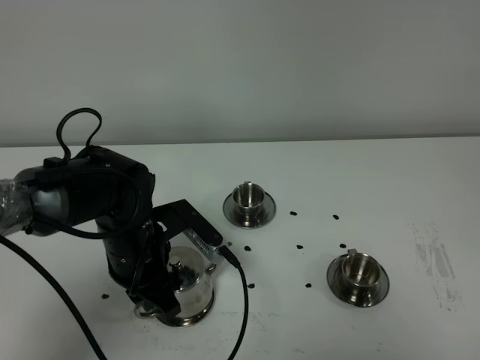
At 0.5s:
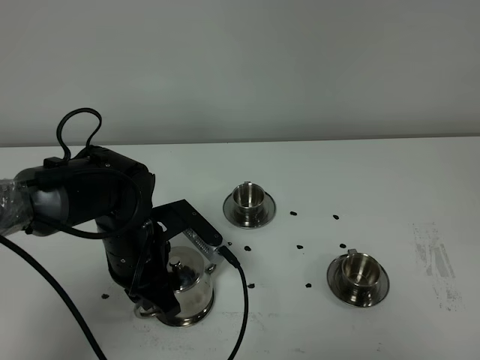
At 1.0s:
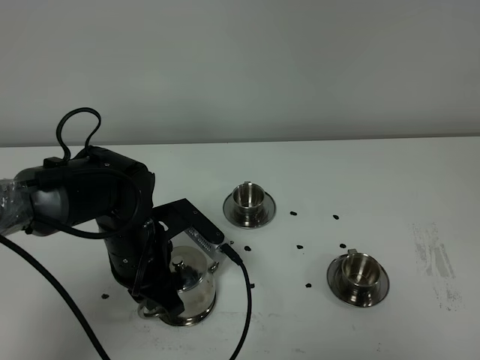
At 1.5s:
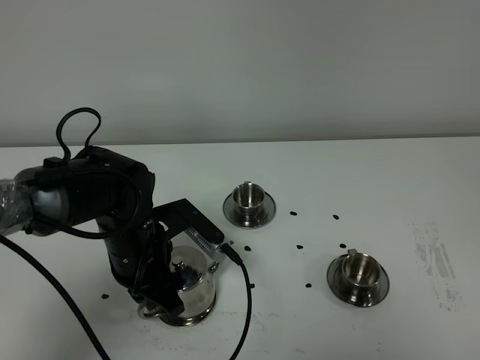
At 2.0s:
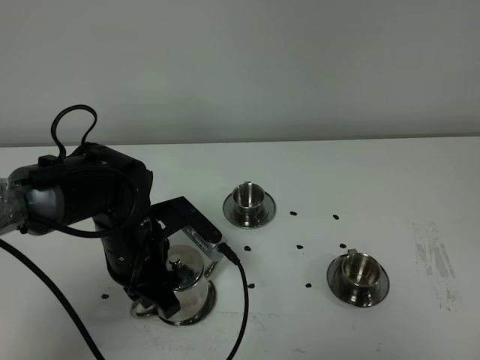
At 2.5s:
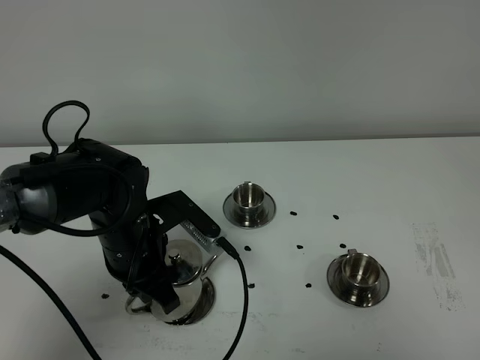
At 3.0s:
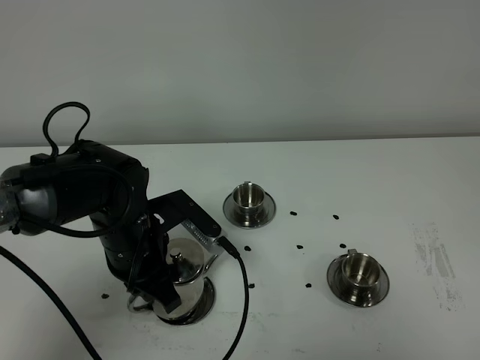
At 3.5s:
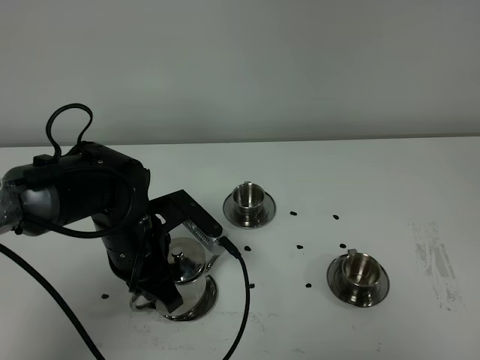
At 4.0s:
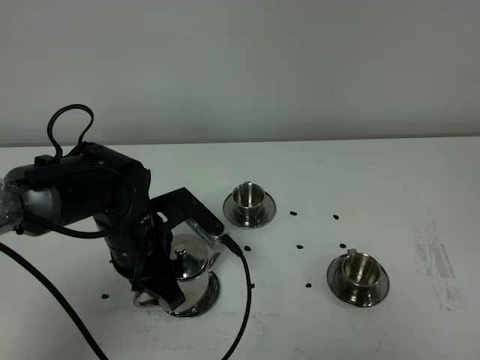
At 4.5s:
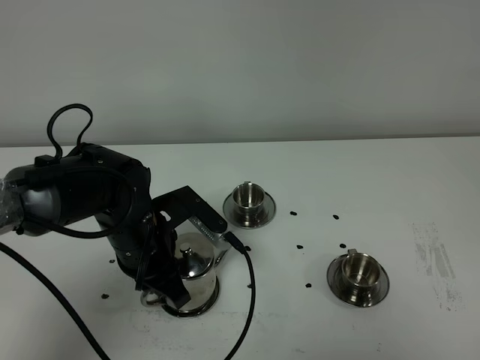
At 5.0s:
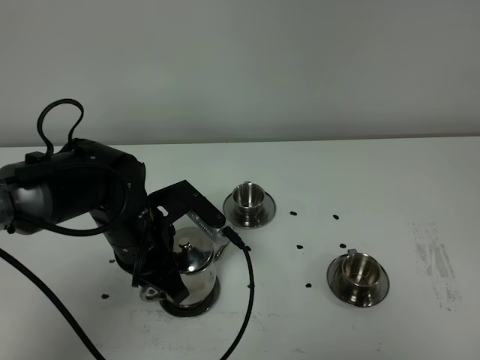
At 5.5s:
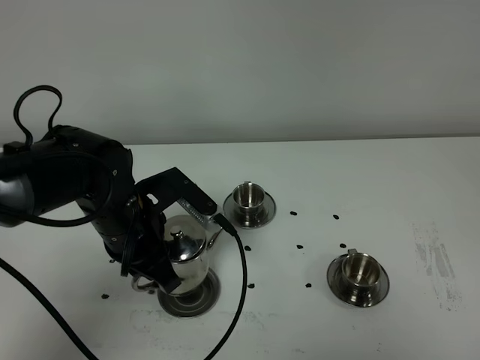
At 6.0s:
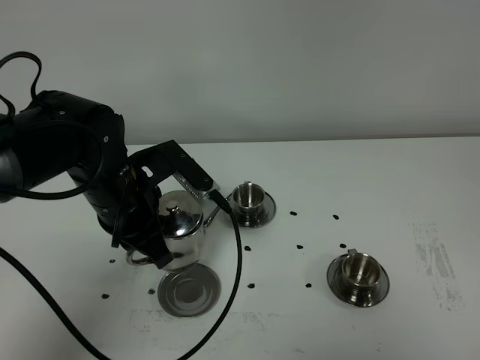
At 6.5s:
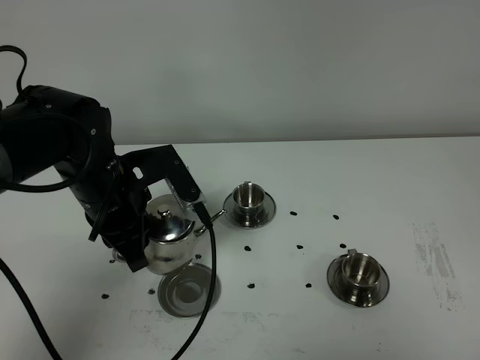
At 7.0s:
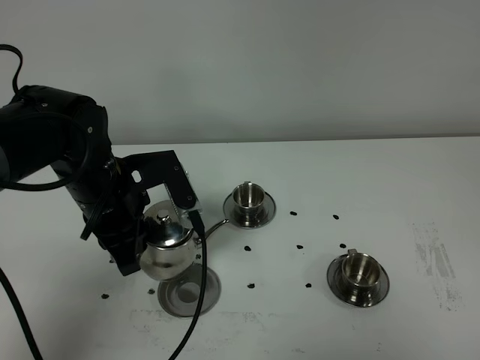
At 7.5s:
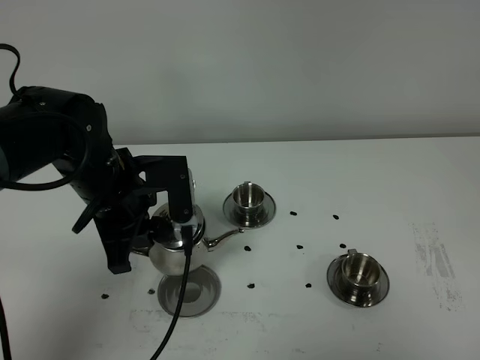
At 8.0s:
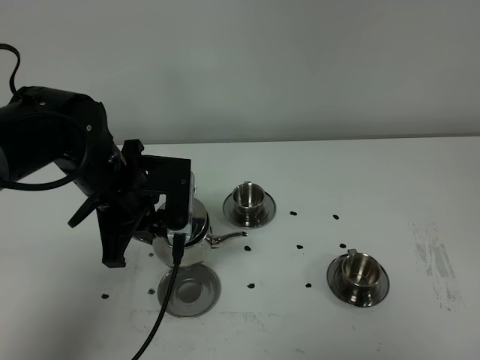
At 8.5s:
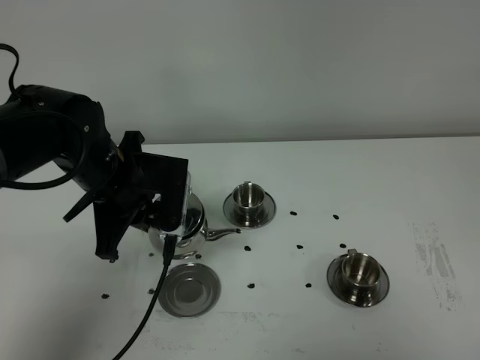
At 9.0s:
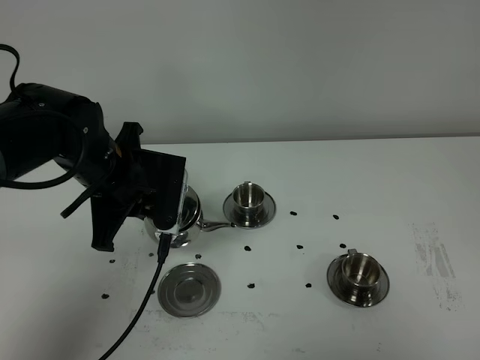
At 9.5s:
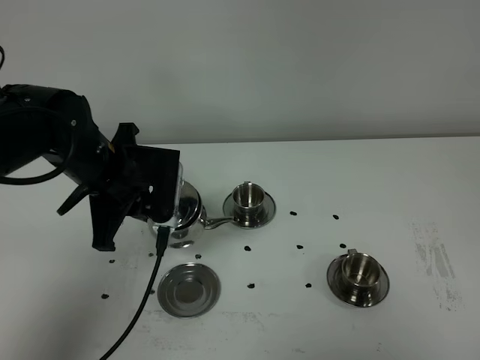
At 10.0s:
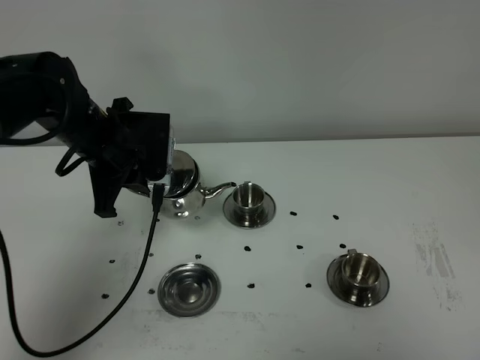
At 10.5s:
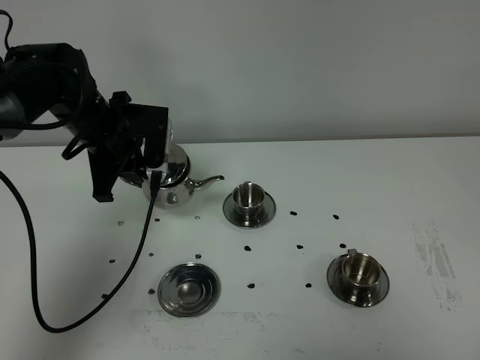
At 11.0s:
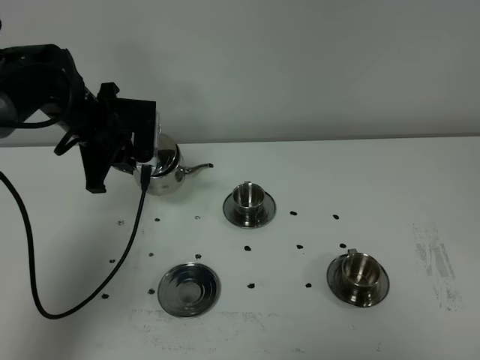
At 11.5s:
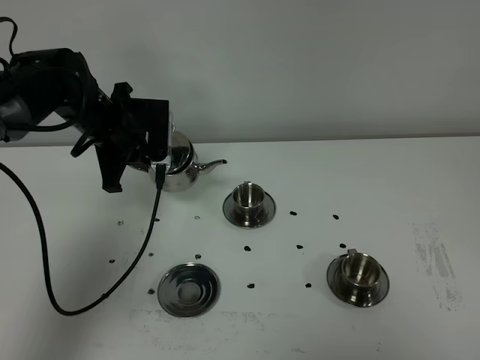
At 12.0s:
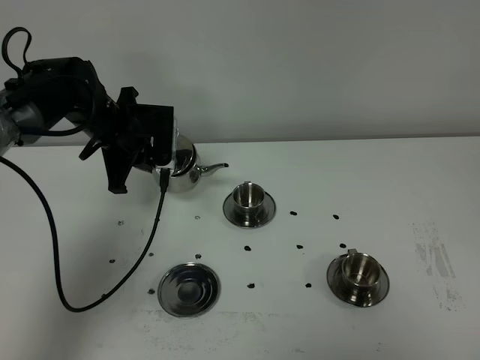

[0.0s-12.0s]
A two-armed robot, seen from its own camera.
Task of the whole recording: grasp the stainless steel teapot and pour the tea into the two stainless steel teacups one by one, put the stainless steel teapot back in its original place.
Step, 0.0s to 5.5s: Pick up the teapot with the left gripper.
0.0s to 2.0s: Neither gripper changes place.
2.0s to 4.0s: Both grippers stay put.
4.0s to 6.0s: The left gripper is displaced upward by approximately 5 cm.
8.0s to 10.0s: The left gripper travels forward by about 5 cm.
10.0s to 12.0s: The left gripper is displaced forward by roughly 5 cm.

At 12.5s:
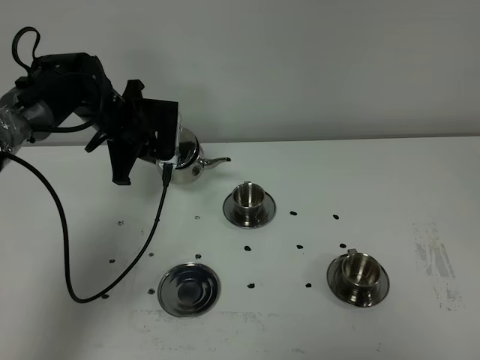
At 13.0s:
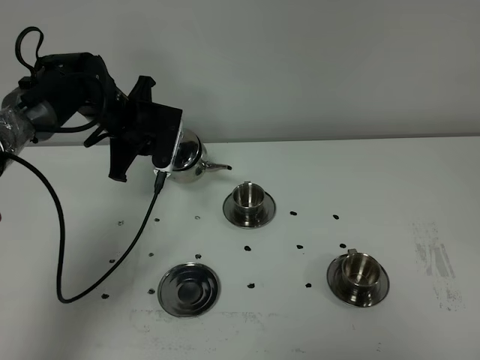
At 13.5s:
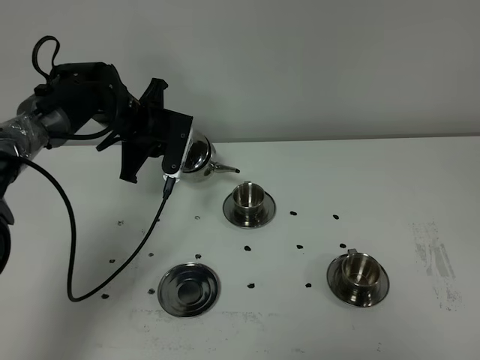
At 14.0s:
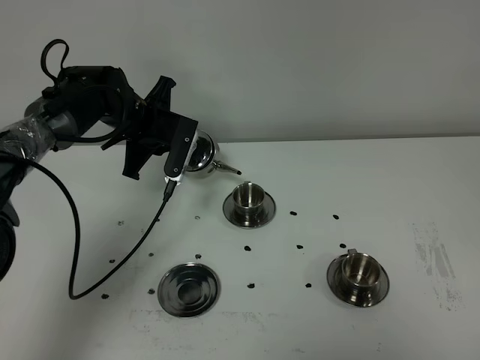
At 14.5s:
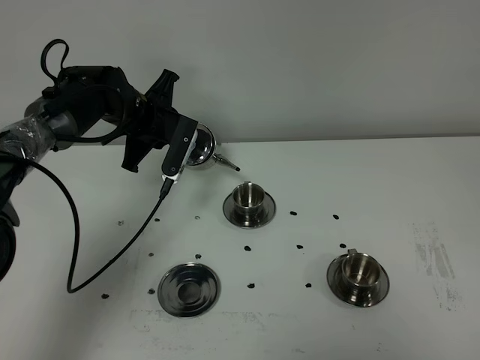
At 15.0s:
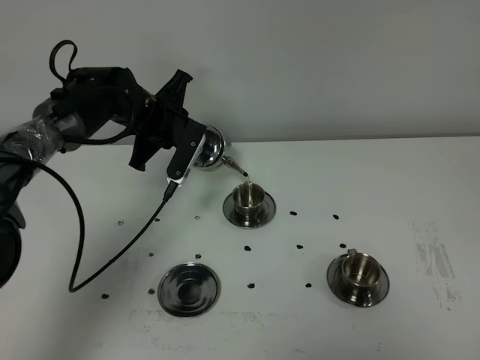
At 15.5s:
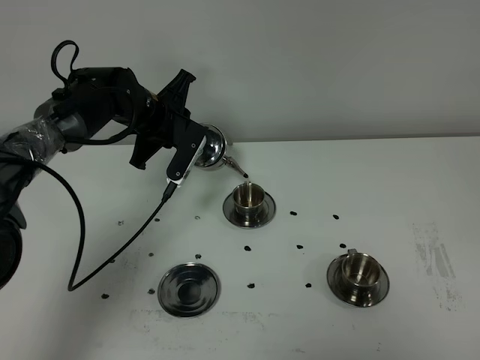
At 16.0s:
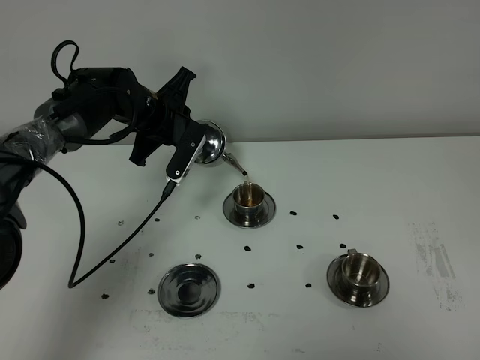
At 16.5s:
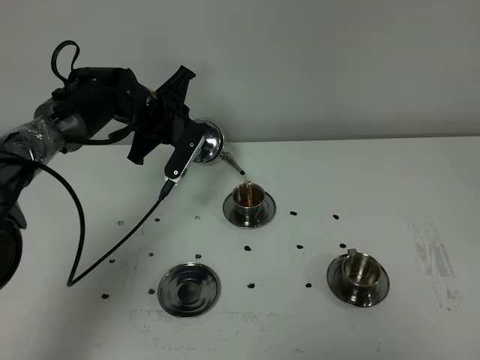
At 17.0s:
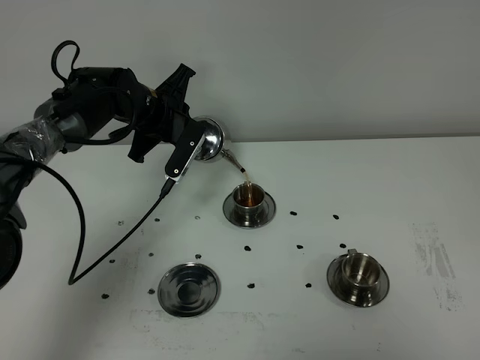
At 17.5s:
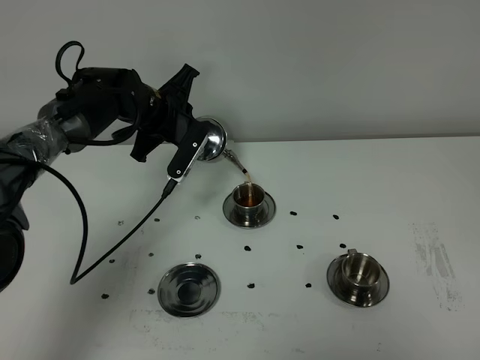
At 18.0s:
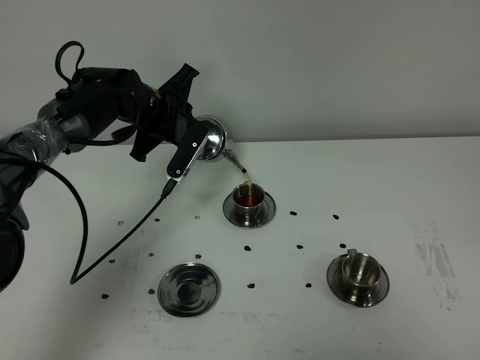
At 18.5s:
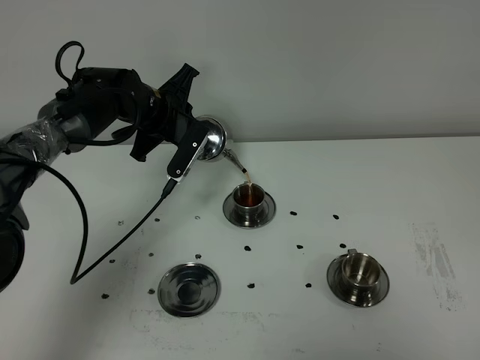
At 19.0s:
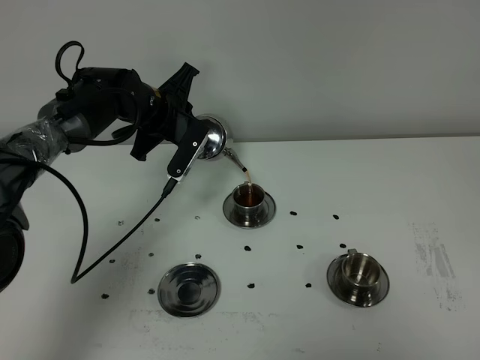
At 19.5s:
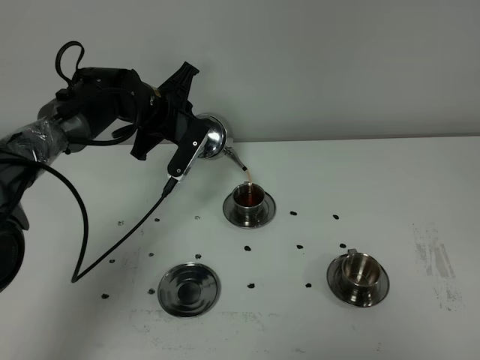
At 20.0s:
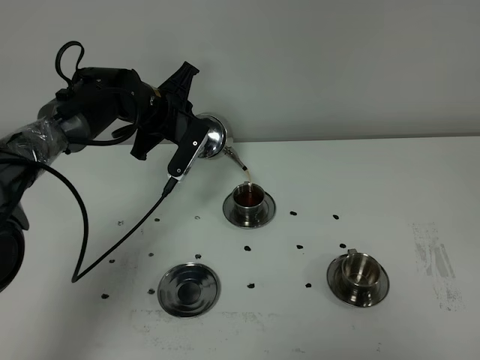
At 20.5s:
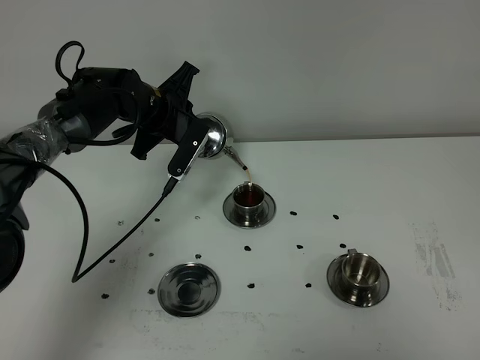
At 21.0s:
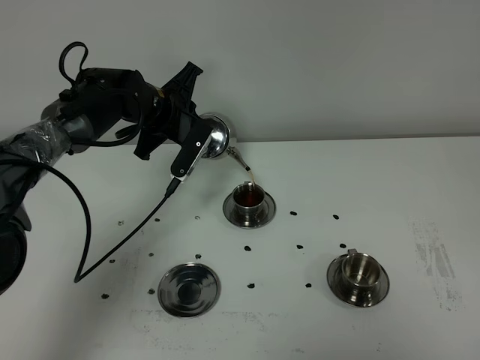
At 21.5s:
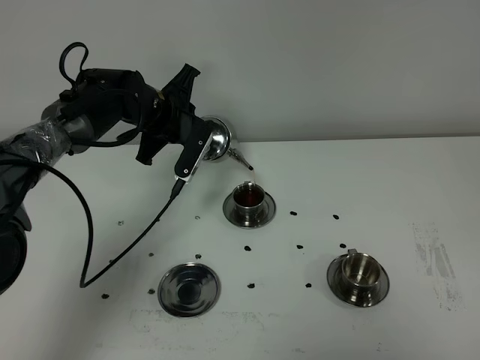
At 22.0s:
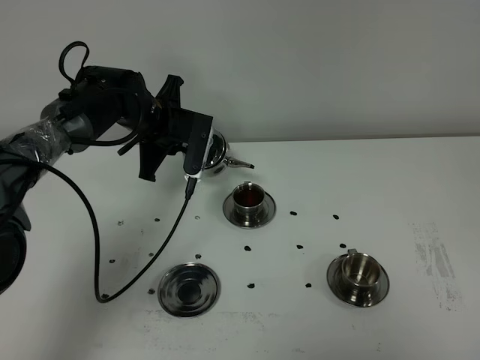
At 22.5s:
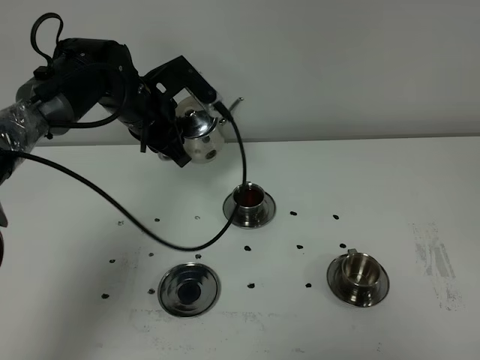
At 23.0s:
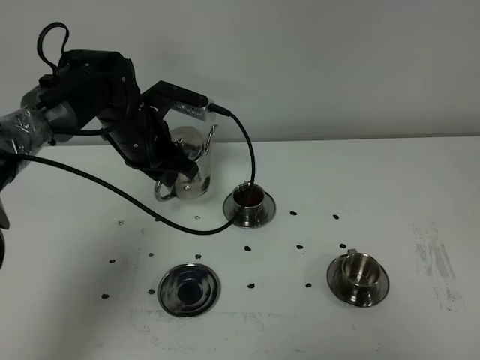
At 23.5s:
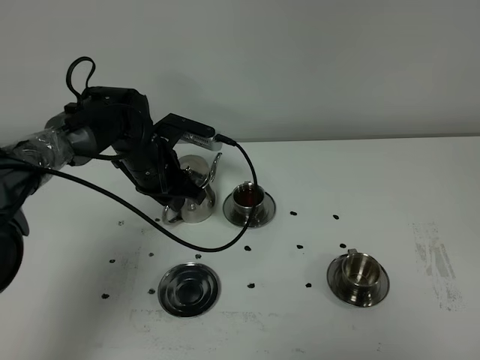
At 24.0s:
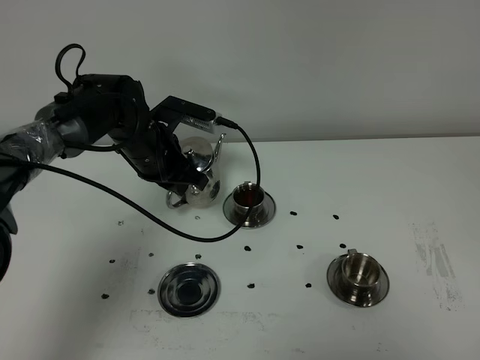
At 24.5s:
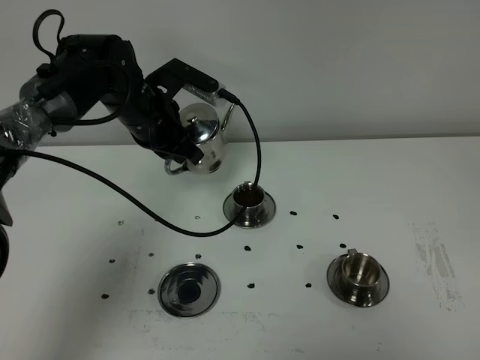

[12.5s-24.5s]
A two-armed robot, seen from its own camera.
Task of the whole recording: grasp the stainless steel teapot and pour the tea into the two stainless steel teacups one by one, put the stainless steel teapot back in its original place.
Step, 12.5s to 21.5s: Pour tea into the teacup with the left gripper.
14.5s to 16.5s: The grippers make only small movements.
16.5s to 20.5s: Neither gripper changes place.
22.5s to 24.5s: The left gripper moves some 10 cm downward and comes back.

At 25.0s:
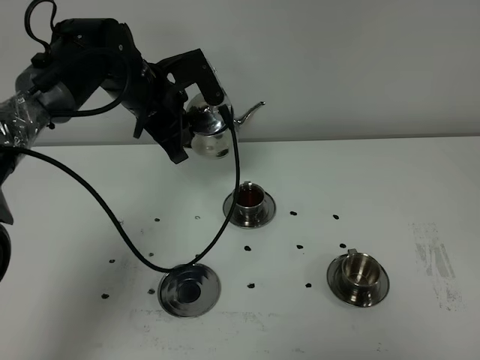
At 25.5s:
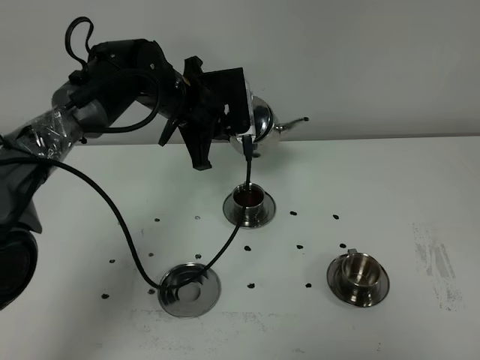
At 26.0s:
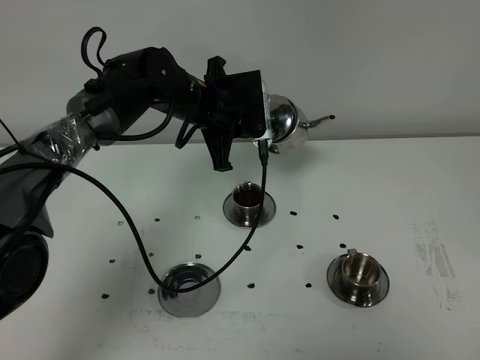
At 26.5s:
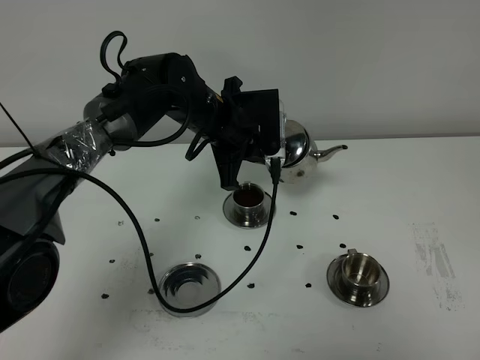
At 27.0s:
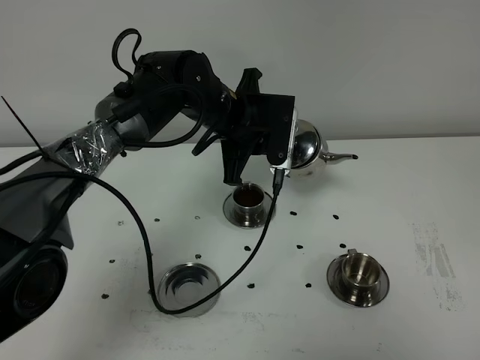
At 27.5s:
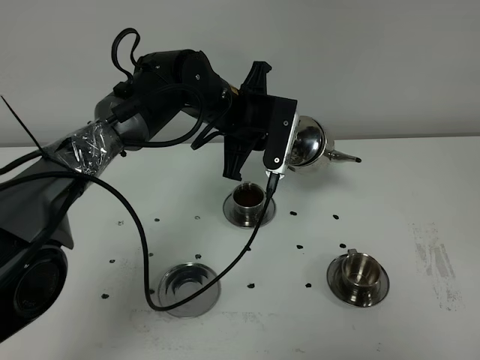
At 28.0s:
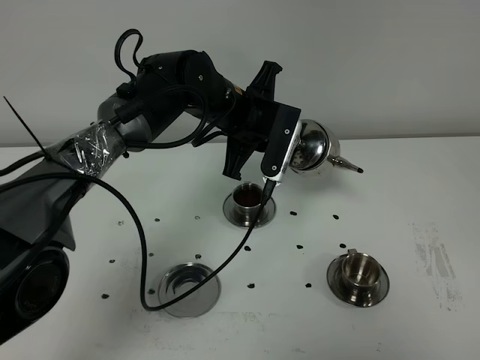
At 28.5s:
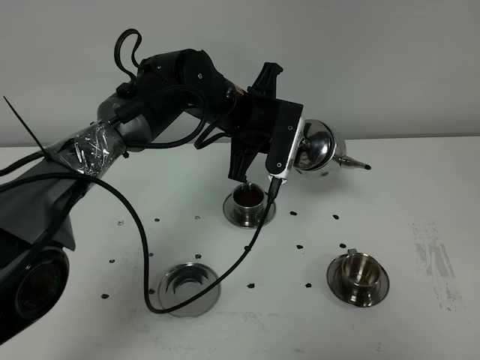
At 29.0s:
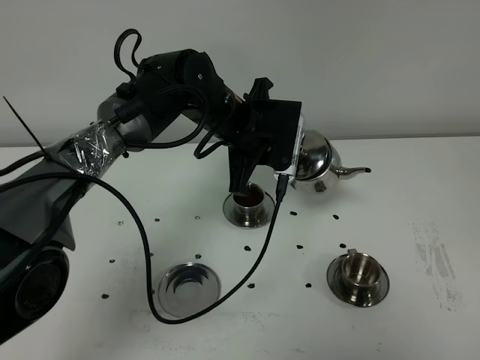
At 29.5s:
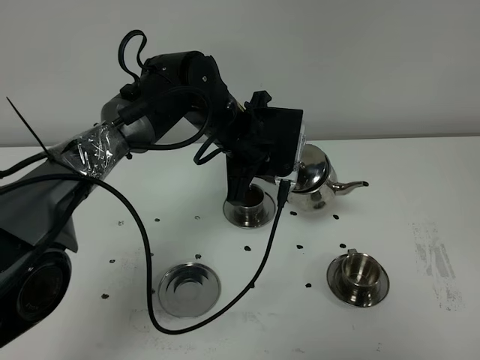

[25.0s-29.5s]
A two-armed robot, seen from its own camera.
Task of the whole recording: grasp the stainless steel teapot and pour the tea into the two stainless steel teacups one by one, put the stainless steel teapot back in its original place.
25.0s to 27.0s: The left gripper is displaced to the right by about 10 cm.
27.0s to 29.5s: The grippers stay close to where they were, moving slightly.
